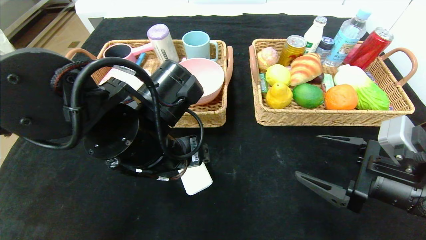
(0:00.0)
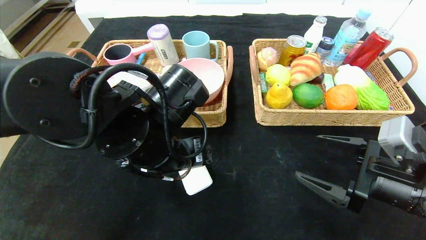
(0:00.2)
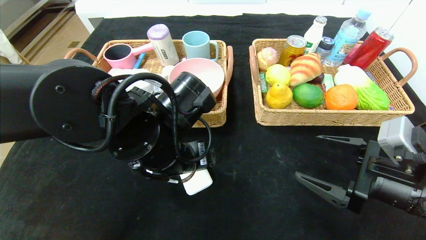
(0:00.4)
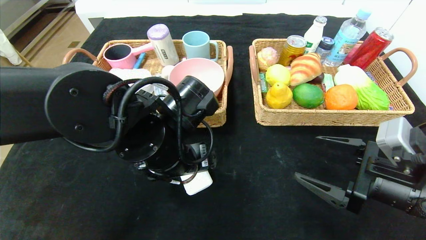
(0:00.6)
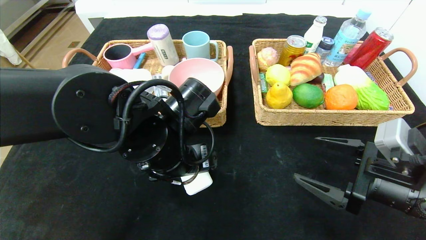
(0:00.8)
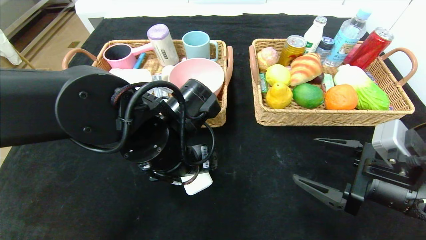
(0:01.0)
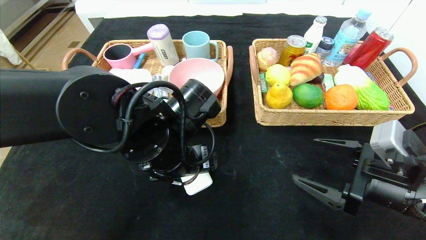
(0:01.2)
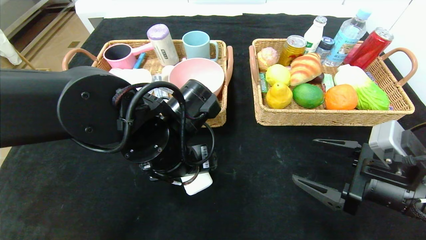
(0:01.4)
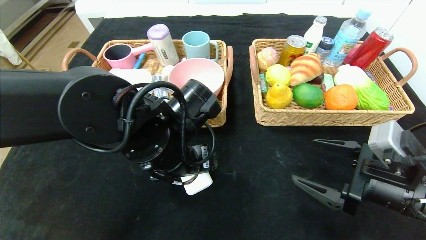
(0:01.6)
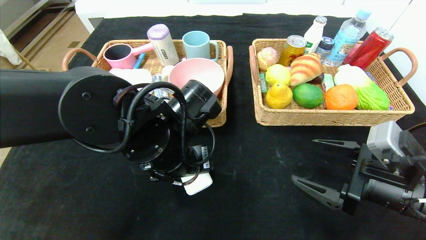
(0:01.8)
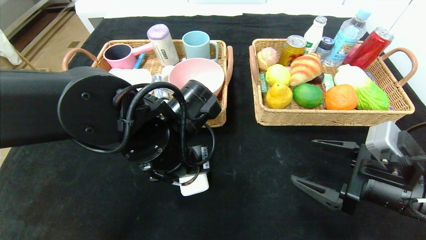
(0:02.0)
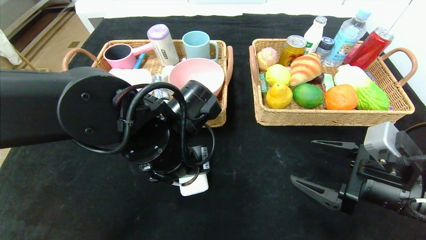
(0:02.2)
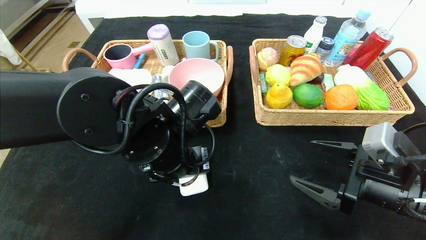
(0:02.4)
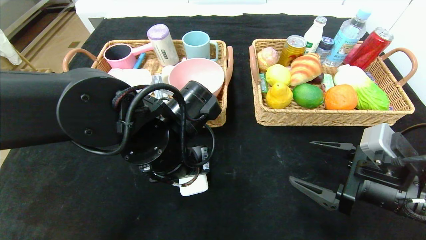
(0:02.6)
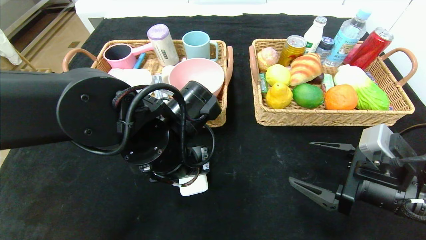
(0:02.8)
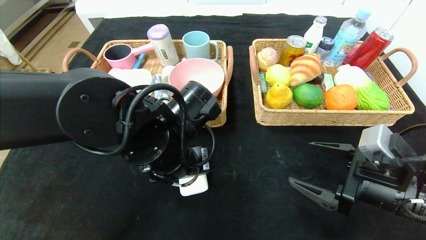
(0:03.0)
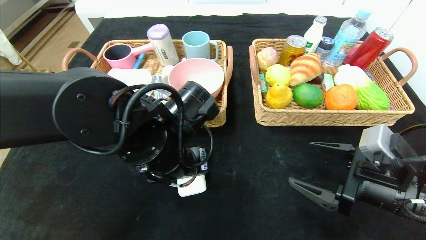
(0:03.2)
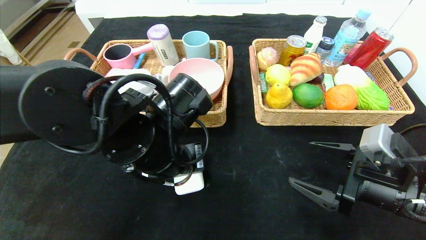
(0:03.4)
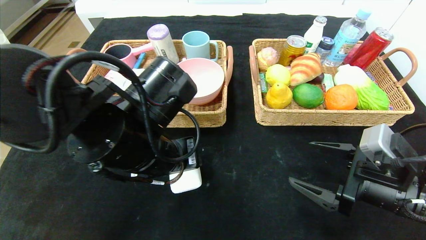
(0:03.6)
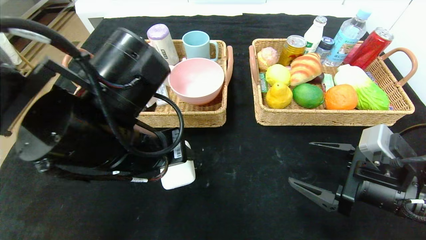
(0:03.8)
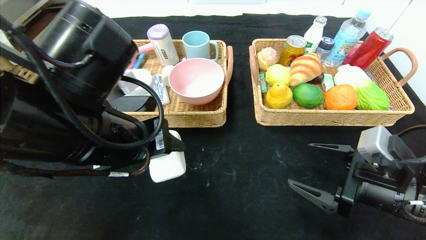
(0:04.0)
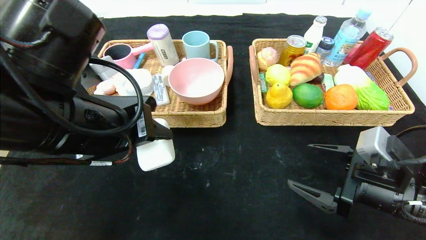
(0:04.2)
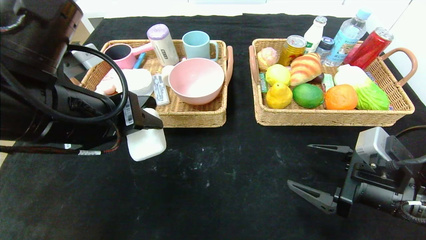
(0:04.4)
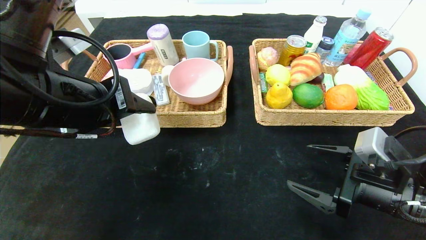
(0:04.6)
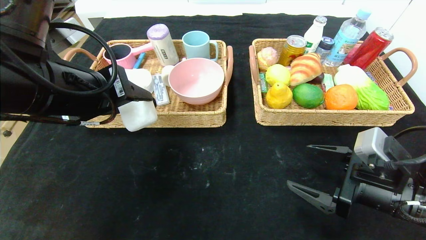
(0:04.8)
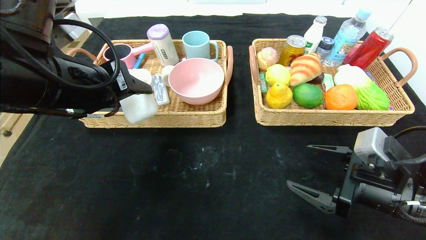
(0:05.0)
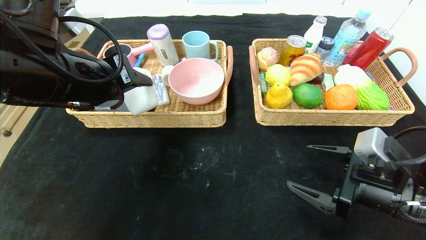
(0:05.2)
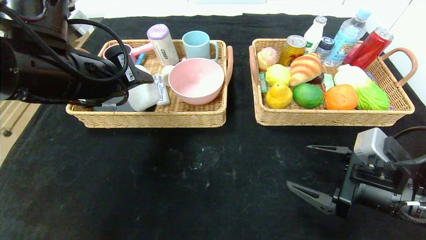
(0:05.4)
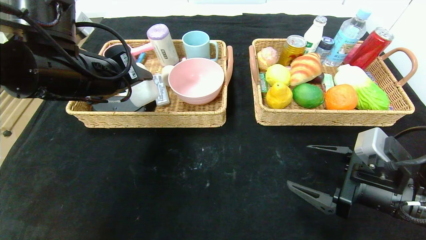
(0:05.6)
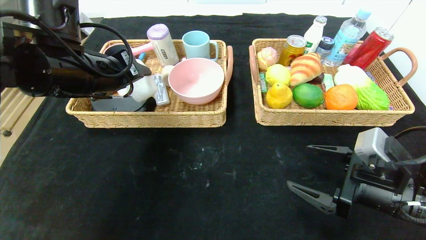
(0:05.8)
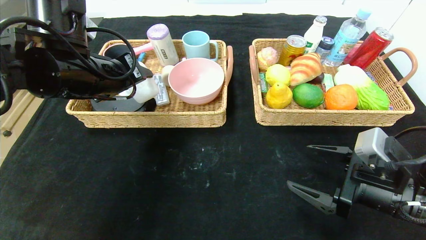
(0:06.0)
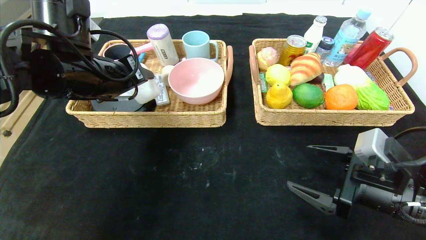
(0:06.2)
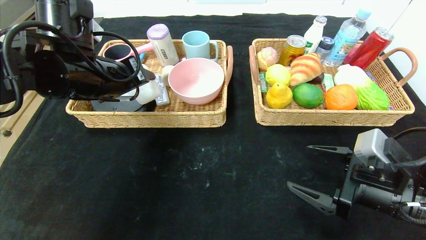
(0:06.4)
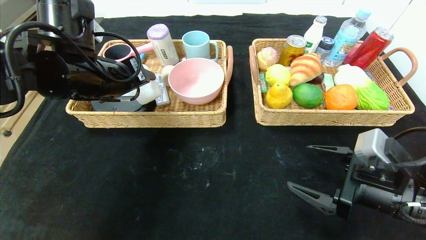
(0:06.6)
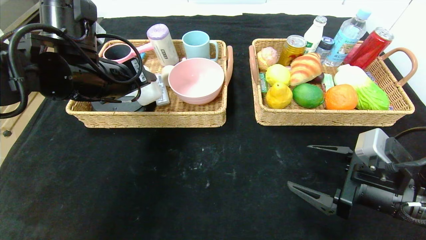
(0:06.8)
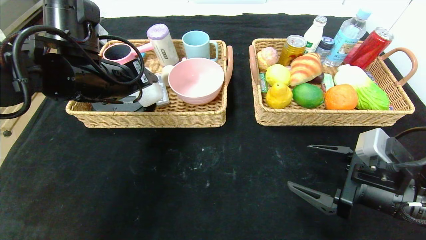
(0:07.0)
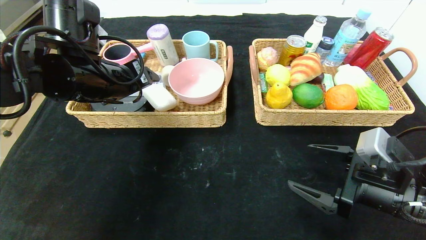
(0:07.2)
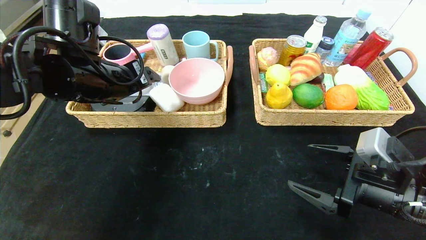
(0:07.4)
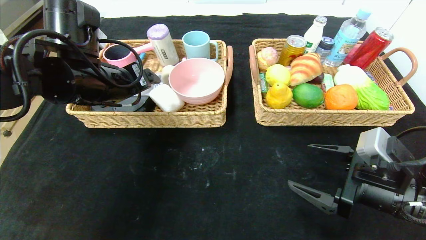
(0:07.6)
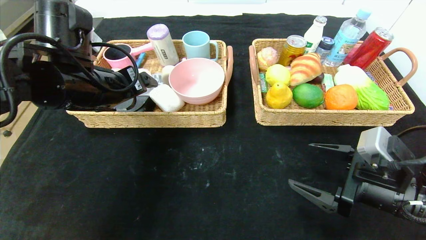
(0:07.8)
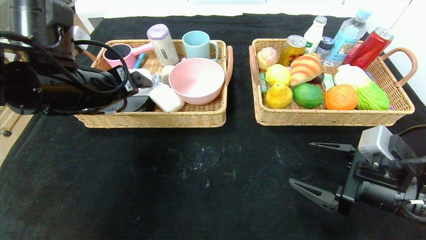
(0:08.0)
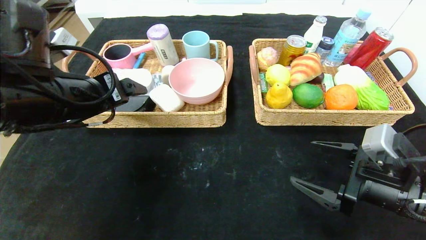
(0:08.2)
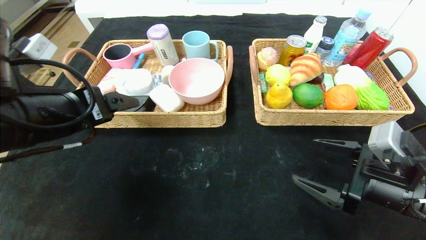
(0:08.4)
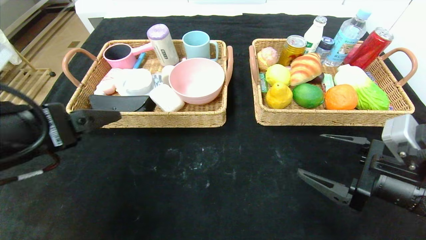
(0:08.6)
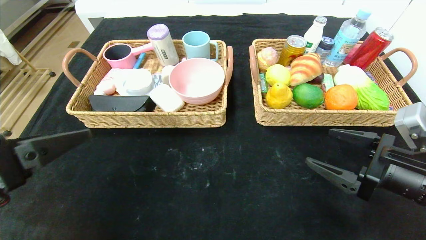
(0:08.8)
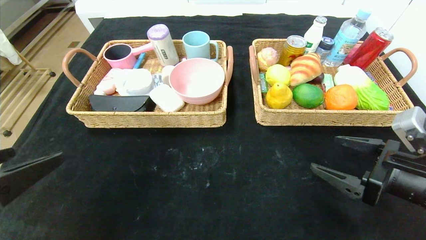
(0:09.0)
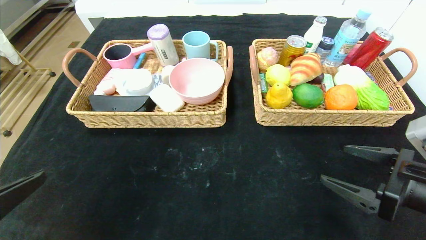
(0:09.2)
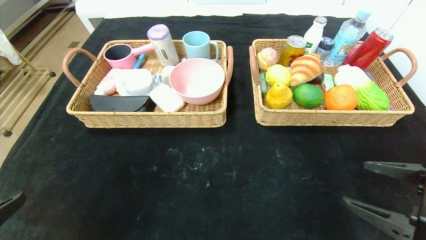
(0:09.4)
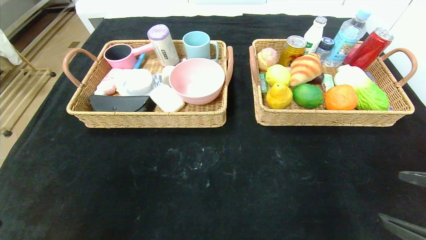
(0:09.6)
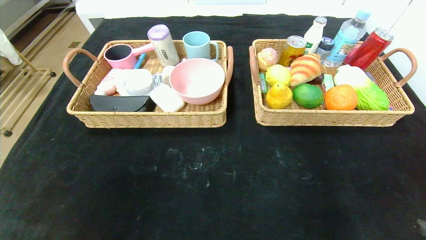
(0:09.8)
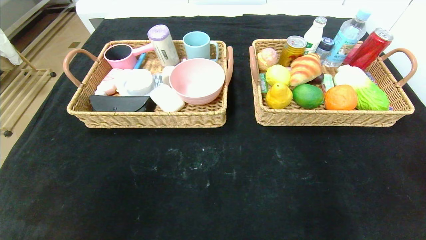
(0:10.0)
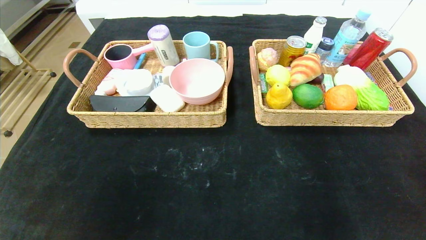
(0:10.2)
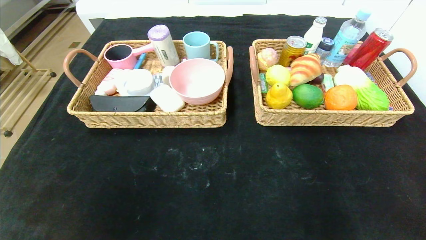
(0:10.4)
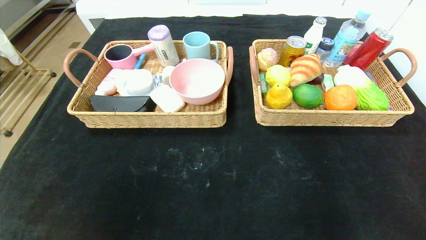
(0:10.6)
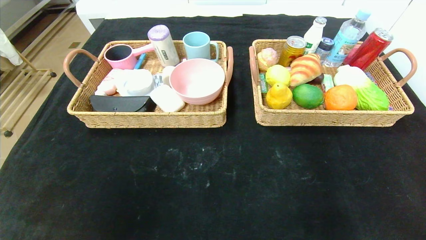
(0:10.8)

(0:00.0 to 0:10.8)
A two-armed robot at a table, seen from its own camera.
Step, 0:00.0 - 0:08.6: Pick up the soap and put it in the left basket.
0:00.0 - 0:01.6: There are only small adjustments of the grippers.
0:01.6 - 0:03.0: The left gripper closes up.
0:03.0 - 0:04.6: The left gripper moves upward and to the left, roughly 15 cm.
0:04.6 - 0:06.2: The left gripper goes some 10 cm forward.
0:06.2 - 0:07.8: The left gripper opens.
0:07.8 - 0:09.2: The left gripper moves backward, approximately 25 cm. The right gripper shifts by about 5 cm.
0:09.2 - 0:10.8: The left gripper shifts roughly 10 cm backward. The right gripper moves backward, roughly 20 cm.

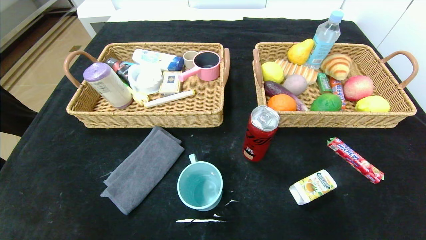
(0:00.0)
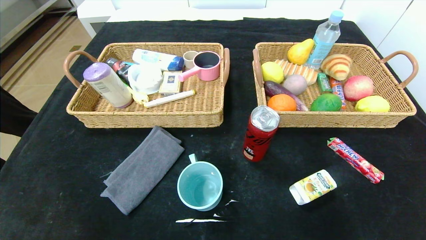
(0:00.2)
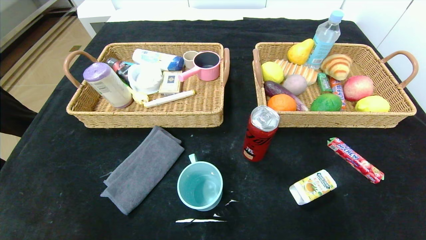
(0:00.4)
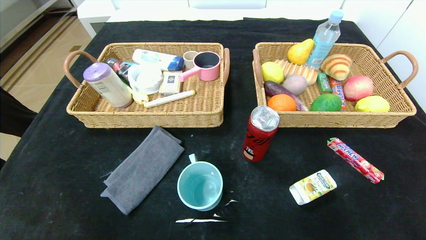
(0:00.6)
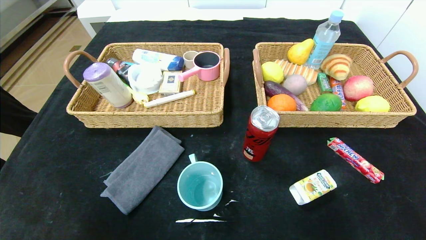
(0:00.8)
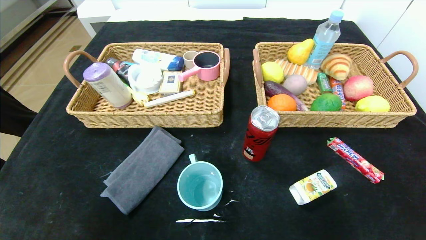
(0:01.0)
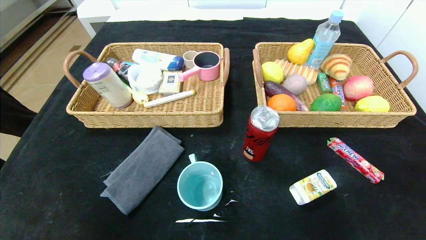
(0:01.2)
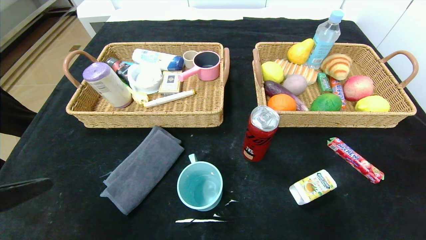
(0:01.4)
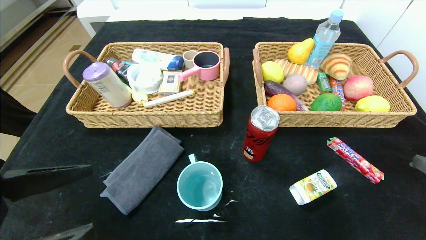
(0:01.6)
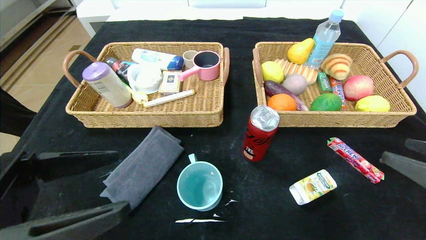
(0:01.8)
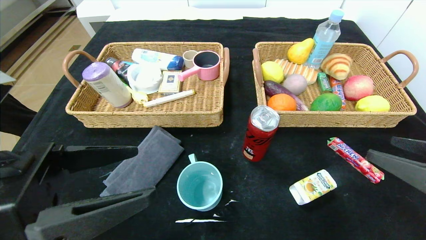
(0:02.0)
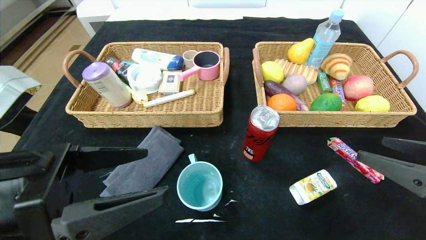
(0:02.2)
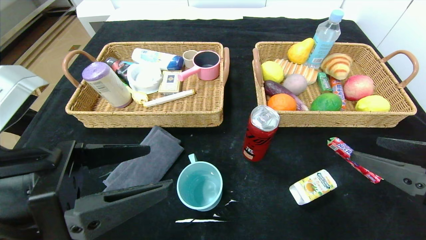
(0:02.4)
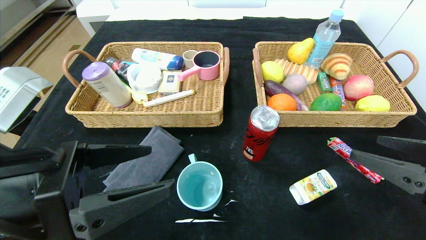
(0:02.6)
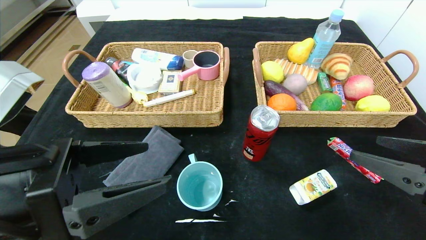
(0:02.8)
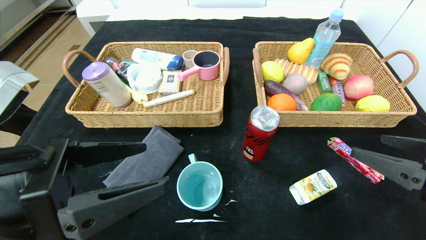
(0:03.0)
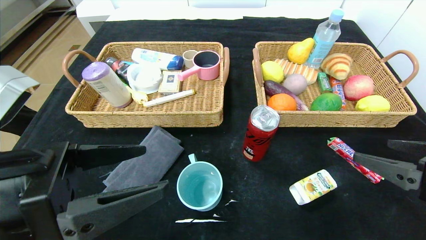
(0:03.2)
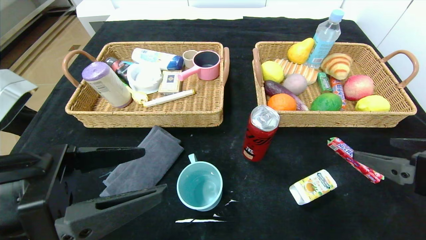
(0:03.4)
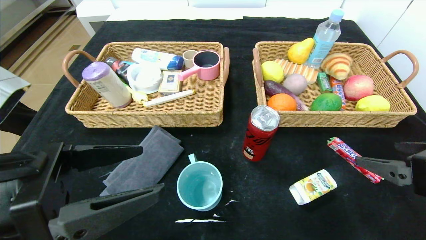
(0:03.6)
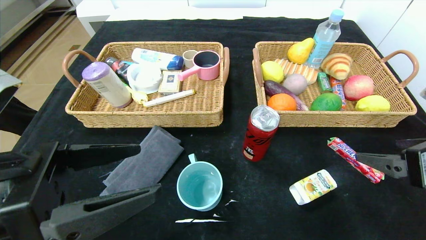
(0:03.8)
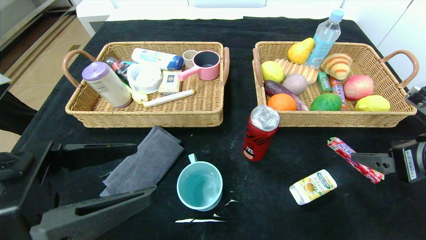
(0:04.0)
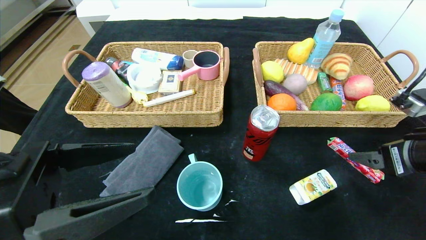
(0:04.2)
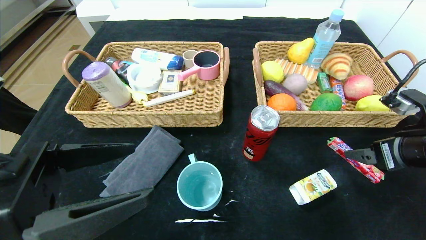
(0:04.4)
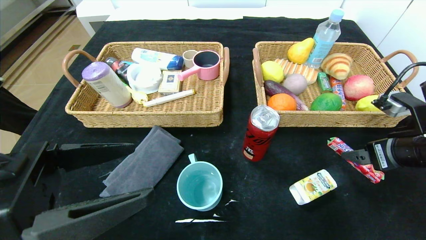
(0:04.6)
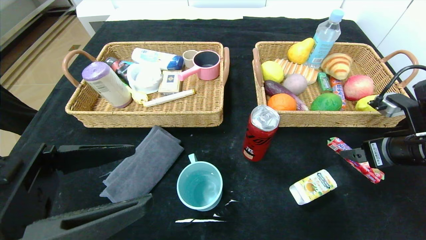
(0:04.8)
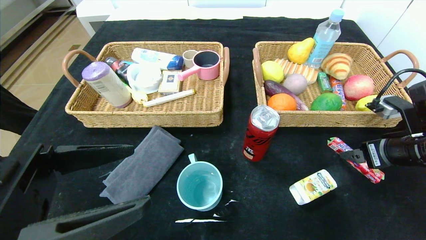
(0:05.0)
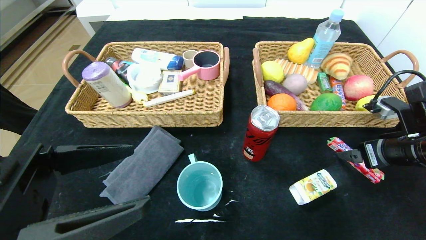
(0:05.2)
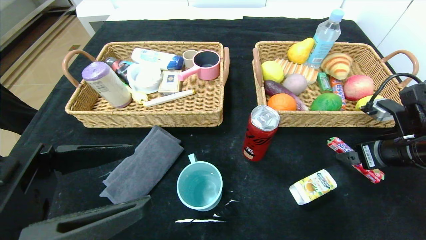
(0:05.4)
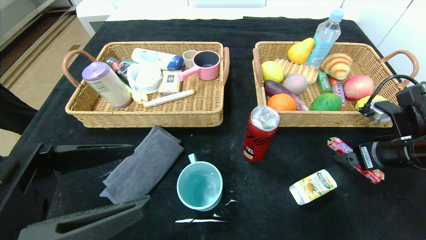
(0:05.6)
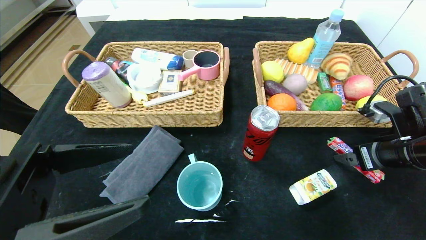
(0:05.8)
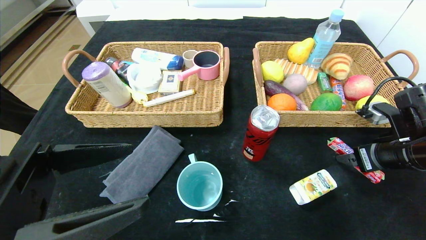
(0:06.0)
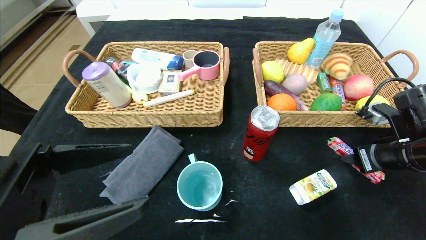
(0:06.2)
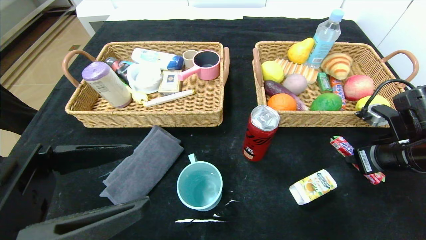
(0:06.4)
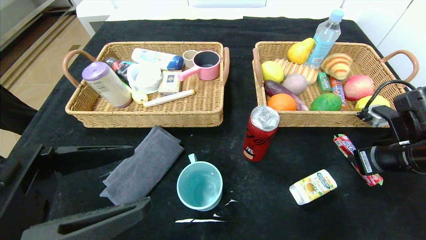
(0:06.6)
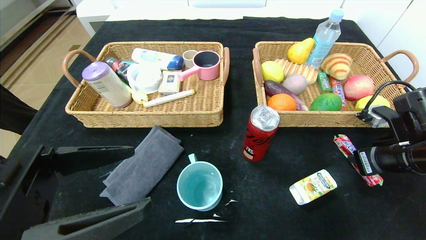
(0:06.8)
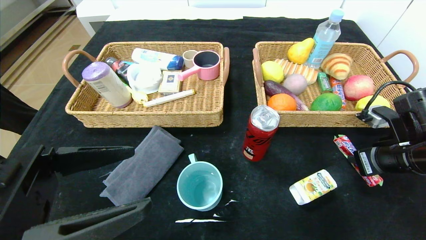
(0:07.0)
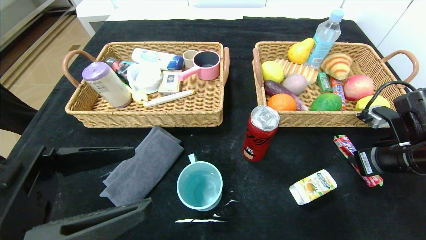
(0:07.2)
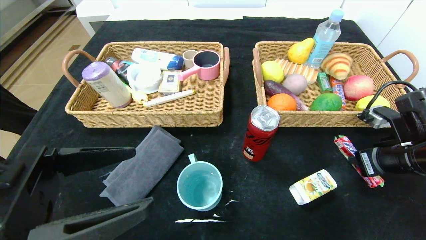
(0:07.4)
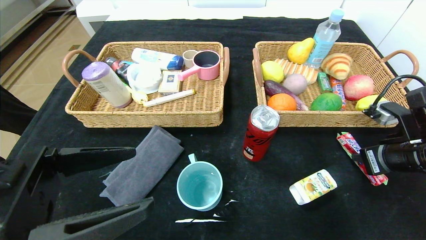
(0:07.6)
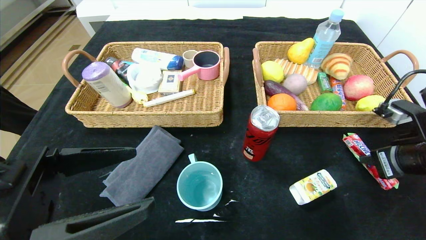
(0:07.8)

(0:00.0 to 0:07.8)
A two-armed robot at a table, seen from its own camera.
0:00.0 - 0:01.6: Both grippers travel together upward and forward, some 20 cm.
0:01.6 - 0:03.2: The right gripper shifts by approximately 5 cm. The left gripper shifts by about 5 cm.
0:03.2 - 0:04.6: The right gripper travels forward by about 10 cm.
0:04.6 - 0:06.2: The right gripper closes.
0:06.2 - 0:07.8: The right gripper closes.
